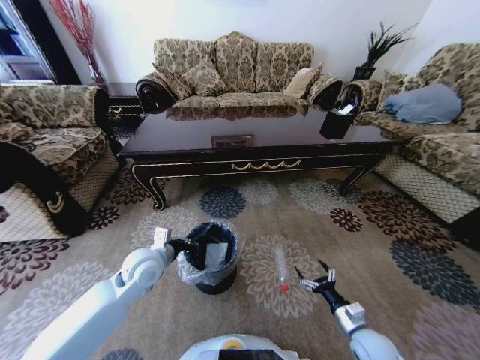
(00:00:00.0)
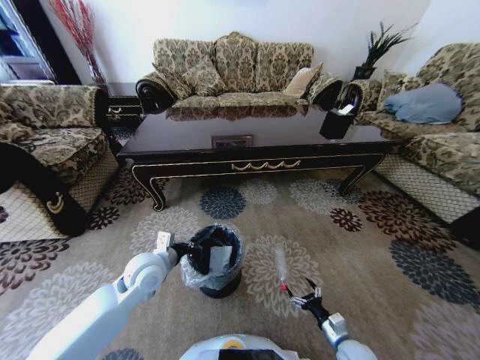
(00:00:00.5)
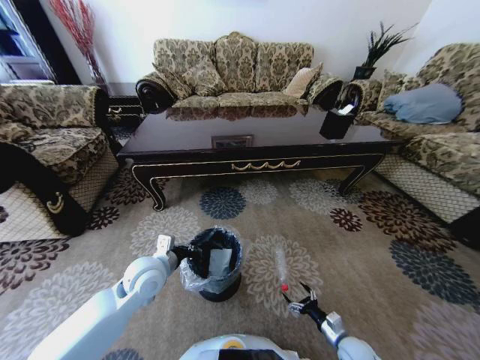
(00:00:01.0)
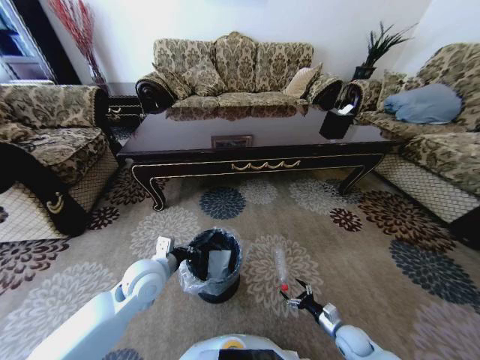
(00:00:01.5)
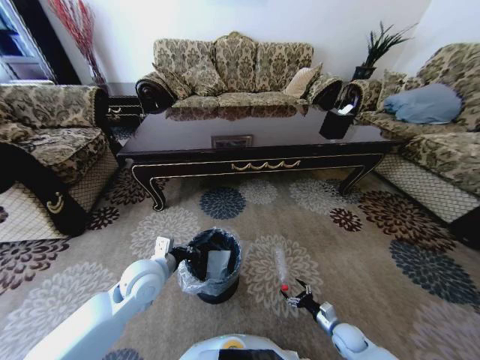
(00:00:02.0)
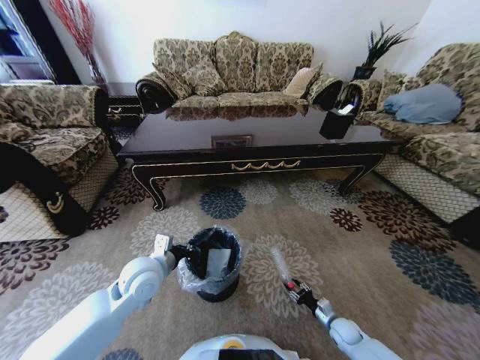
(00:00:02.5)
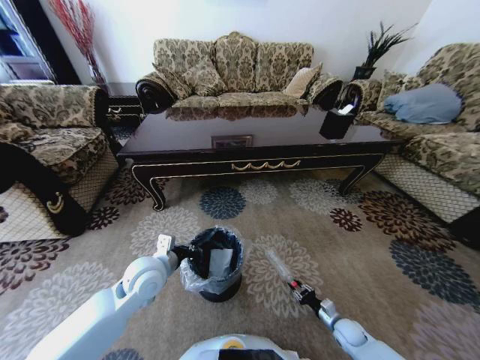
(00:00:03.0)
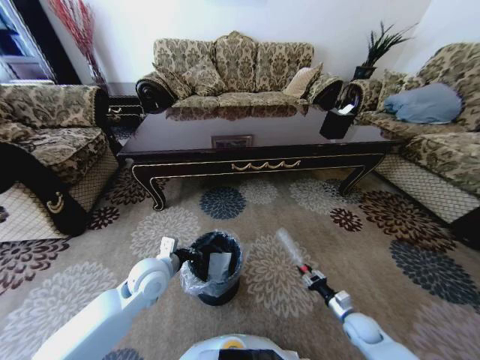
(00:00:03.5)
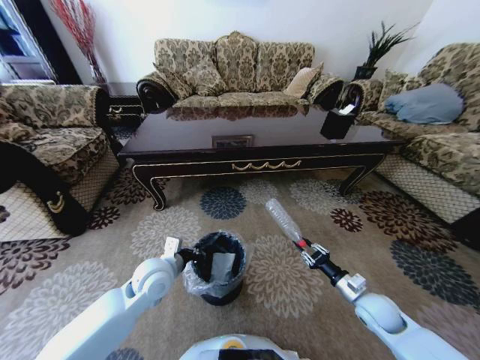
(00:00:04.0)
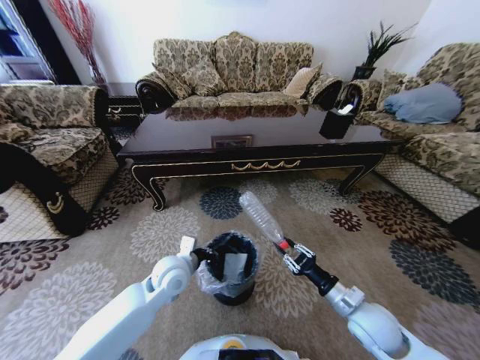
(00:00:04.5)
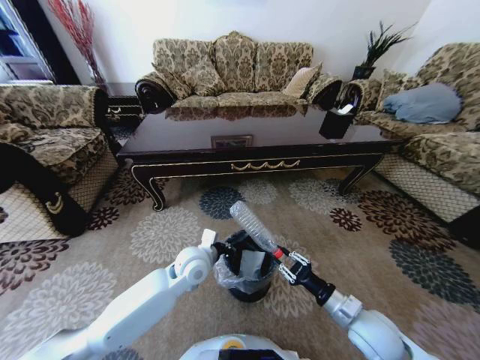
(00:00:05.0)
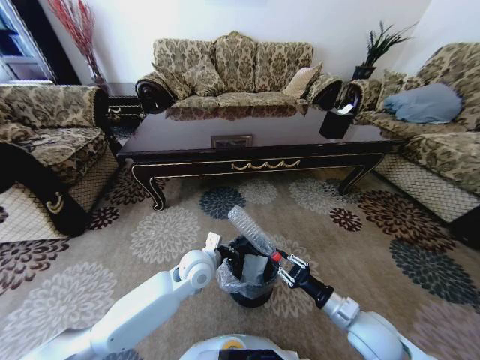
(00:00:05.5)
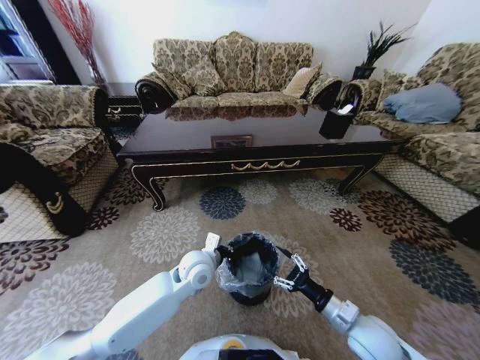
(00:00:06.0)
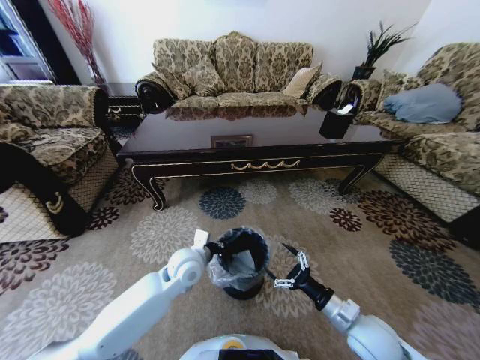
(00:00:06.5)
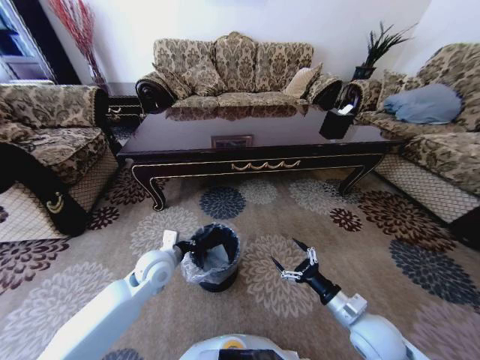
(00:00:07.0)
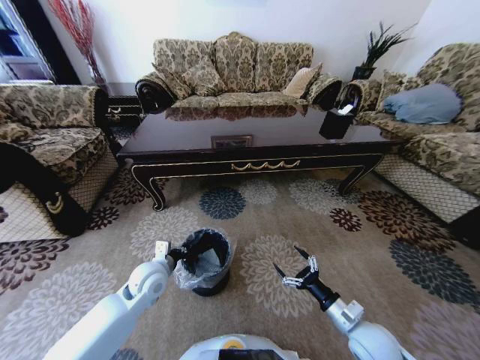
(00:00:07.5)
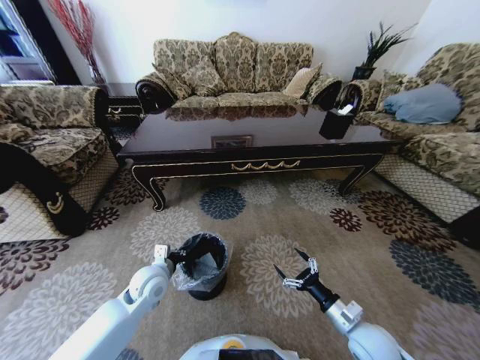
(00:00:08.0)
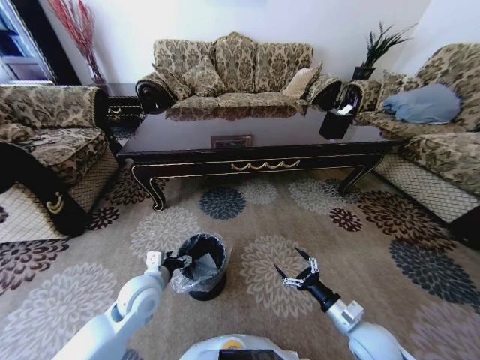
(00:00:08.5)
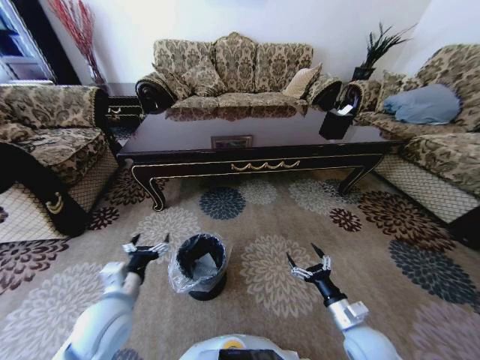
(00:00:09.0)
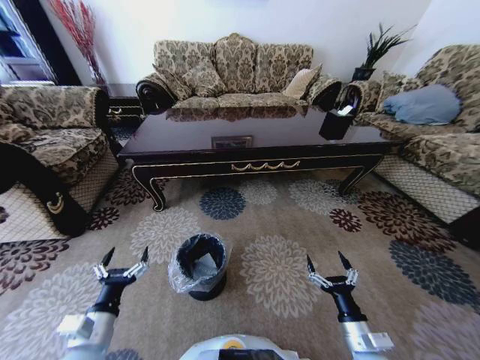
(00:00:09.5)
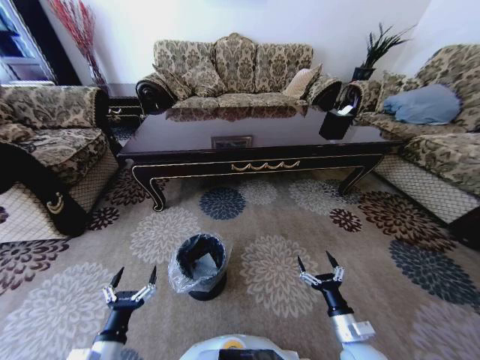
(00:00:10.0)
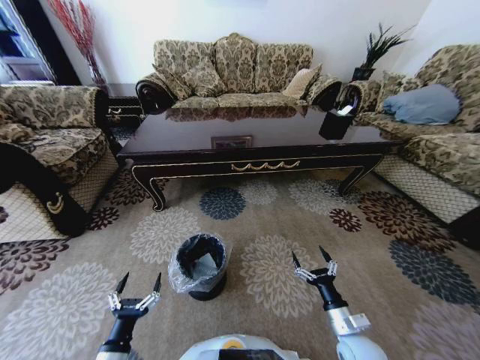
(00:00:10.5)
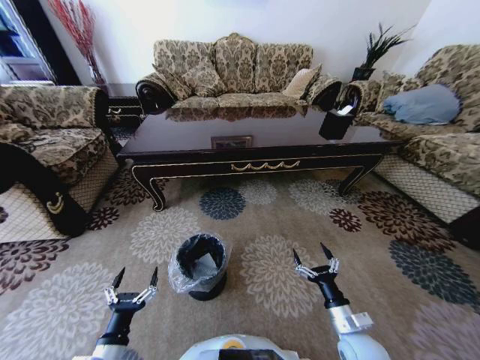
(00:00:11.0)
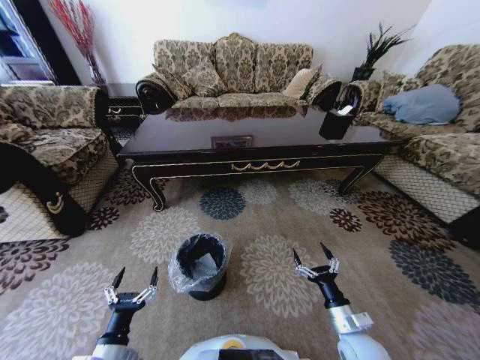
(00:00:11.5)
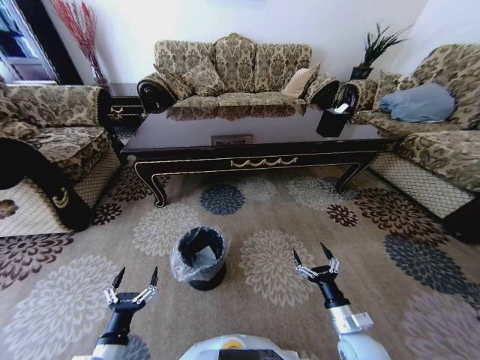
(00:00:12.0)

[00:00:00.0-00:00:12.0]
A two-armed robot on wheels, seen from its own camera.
Task of the whole recording: Move to the front of the table and pick up the trash from the floor, then place it into the trash bin.
00:00:00.0 to 00:00:02.0: The right gripper moves downward, some 15 cm.
00:00:02.0 to 00:00:04.0: The right gripper goes approximately 20 cm upward, and closes its fingers.
00:00:04.0 to 00:00:06.0: The right gripper moves to the left and backward, roughly 10 cm, and opens its fingers; the left gripper heads to the right, covering approximately 10 cm.
00:00:06.0 to 00:00:08.0: The left gripper moves to the left, roughly 15 cm.
00:00:08.0 to 00:00:10.0: The left gripper travels backward by some 20 cm, and opens its fingers.

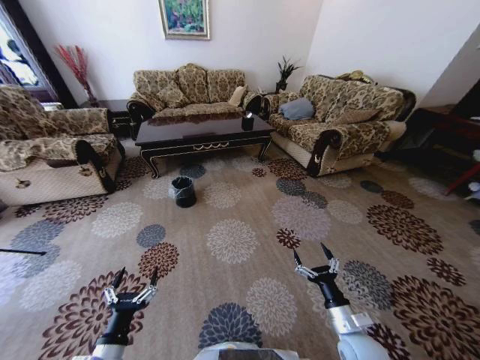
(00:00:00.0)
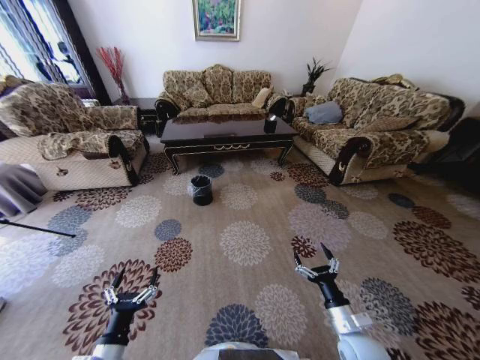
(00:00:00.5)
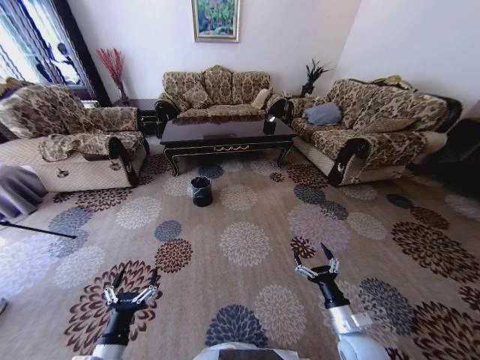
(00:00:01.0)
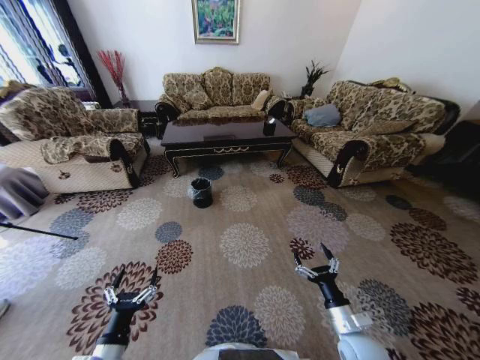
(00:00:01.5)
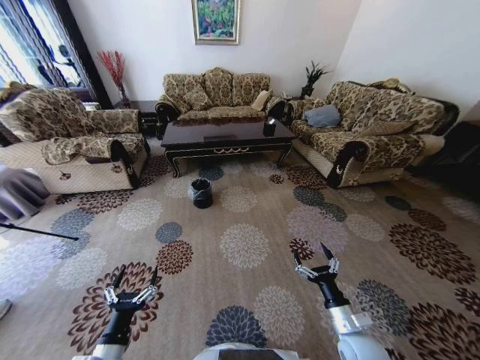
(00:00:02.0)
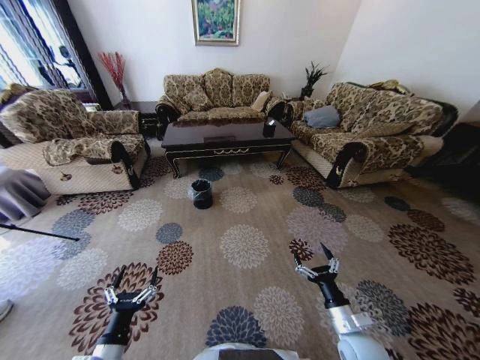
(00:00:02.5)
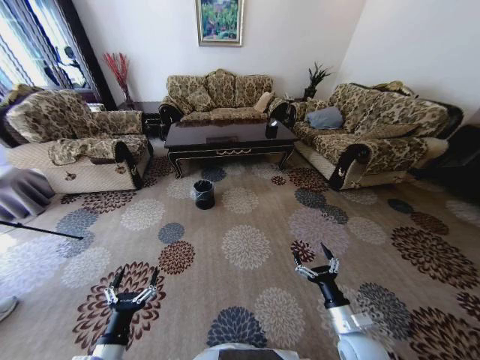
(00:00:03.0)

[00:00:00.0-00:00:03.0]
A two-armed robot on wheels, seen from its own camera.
Task of the whole recording: Move to the front of the table and pick up the trash from the floor, then place it into the trash bin.
00:00:01.5 to 00:00:03.0: The two grippers keep their place.
